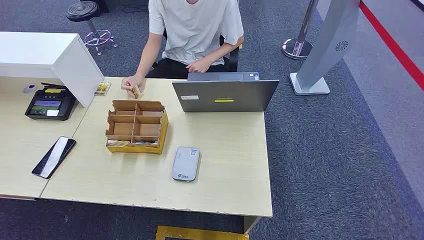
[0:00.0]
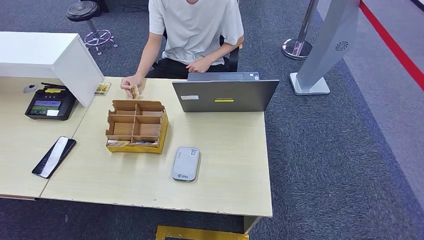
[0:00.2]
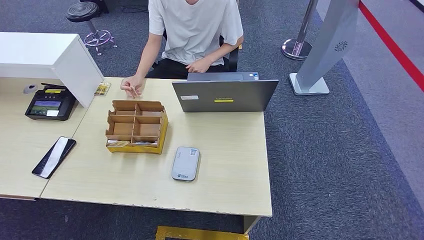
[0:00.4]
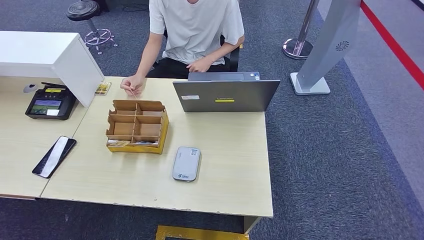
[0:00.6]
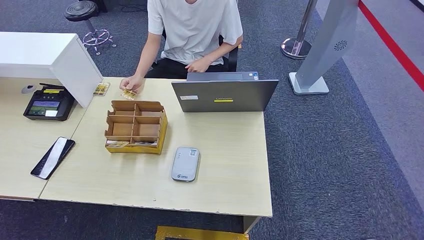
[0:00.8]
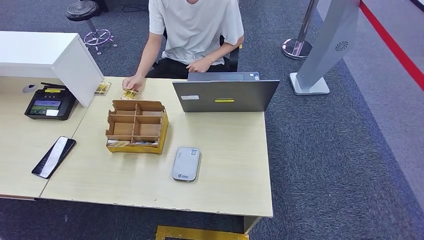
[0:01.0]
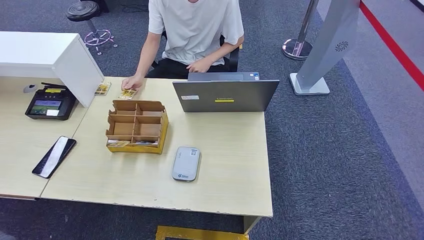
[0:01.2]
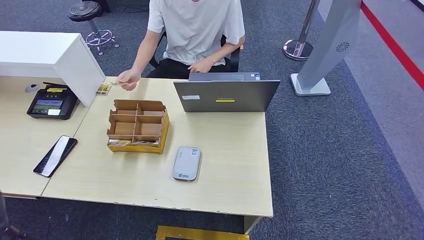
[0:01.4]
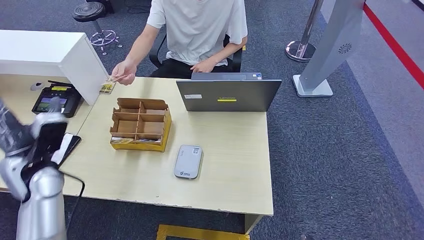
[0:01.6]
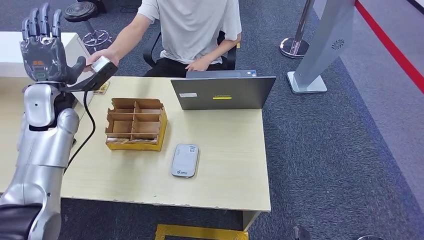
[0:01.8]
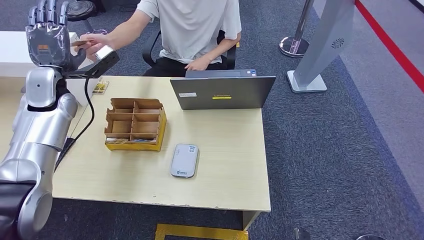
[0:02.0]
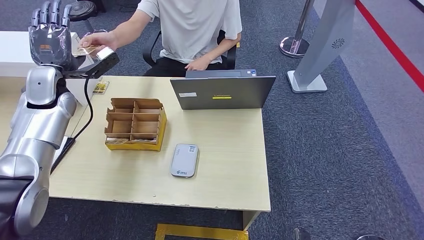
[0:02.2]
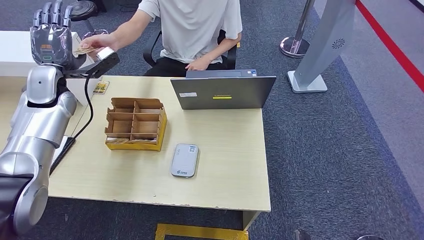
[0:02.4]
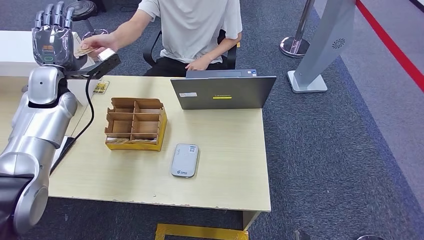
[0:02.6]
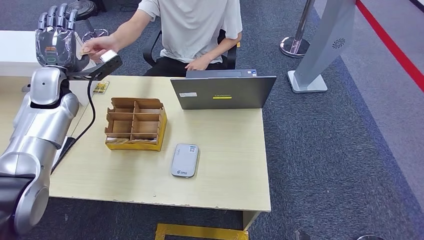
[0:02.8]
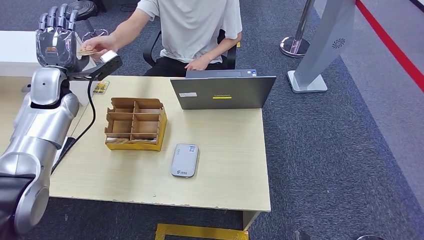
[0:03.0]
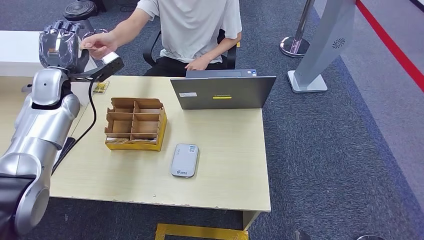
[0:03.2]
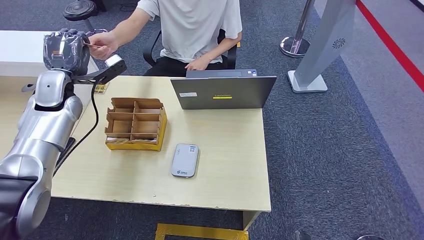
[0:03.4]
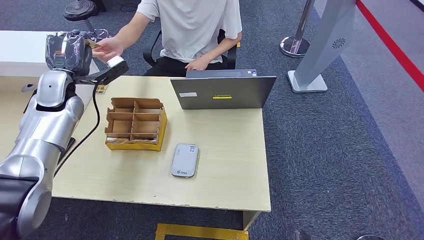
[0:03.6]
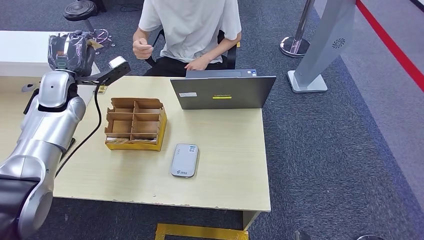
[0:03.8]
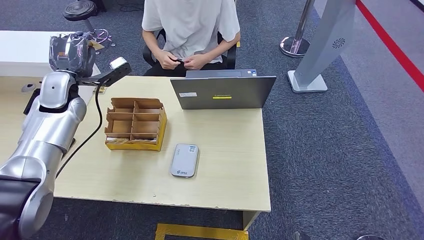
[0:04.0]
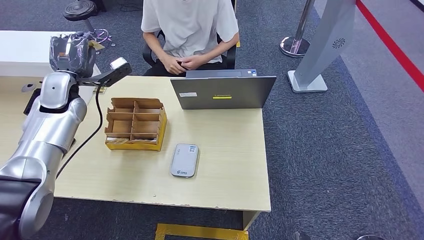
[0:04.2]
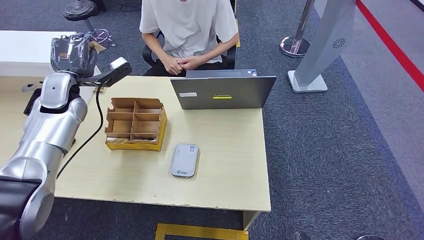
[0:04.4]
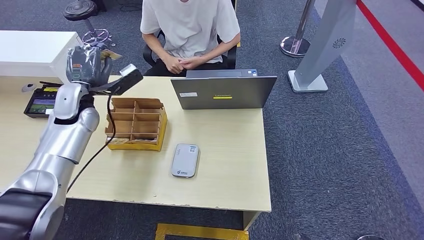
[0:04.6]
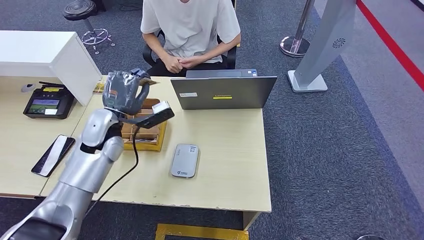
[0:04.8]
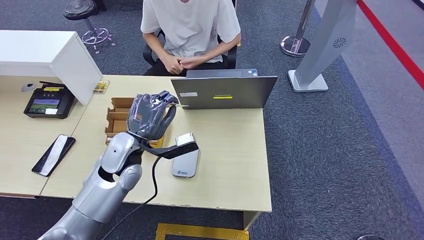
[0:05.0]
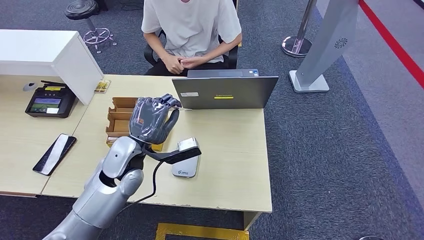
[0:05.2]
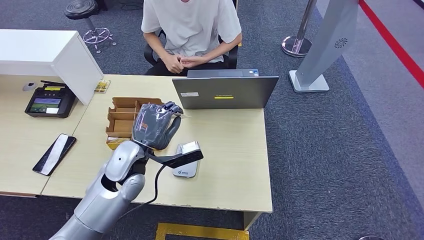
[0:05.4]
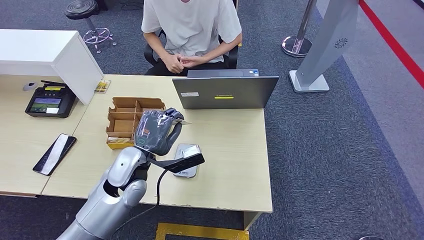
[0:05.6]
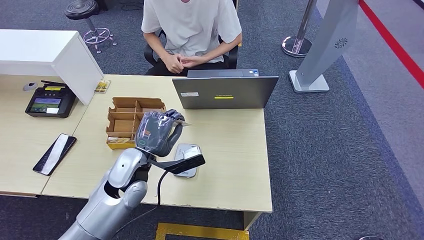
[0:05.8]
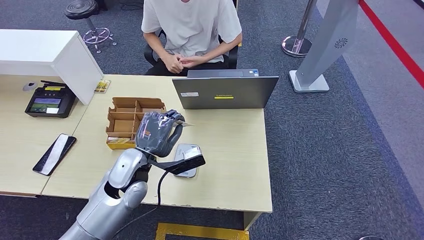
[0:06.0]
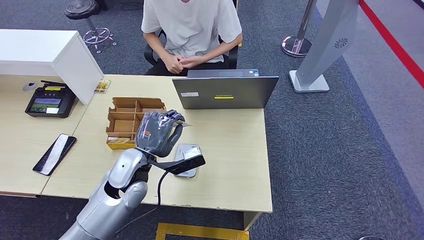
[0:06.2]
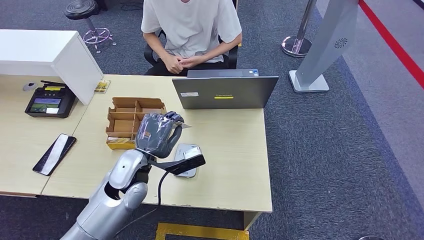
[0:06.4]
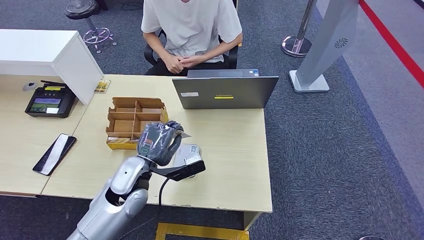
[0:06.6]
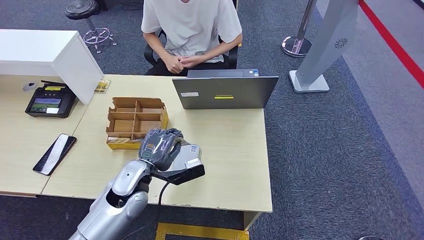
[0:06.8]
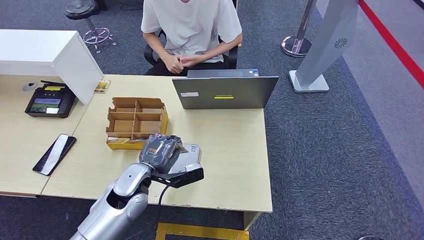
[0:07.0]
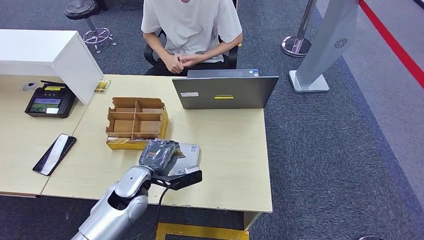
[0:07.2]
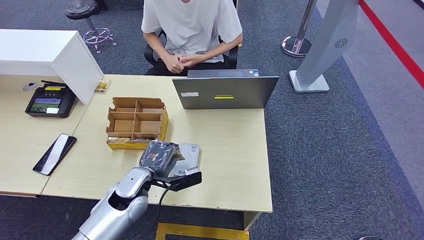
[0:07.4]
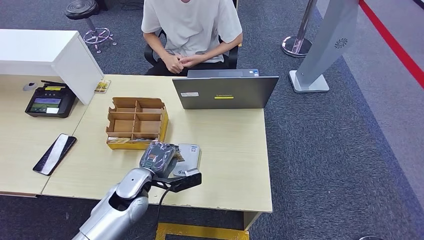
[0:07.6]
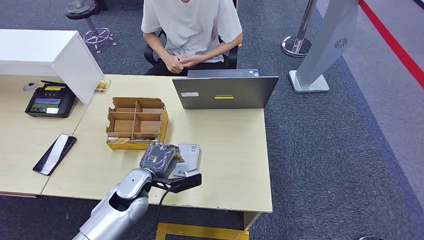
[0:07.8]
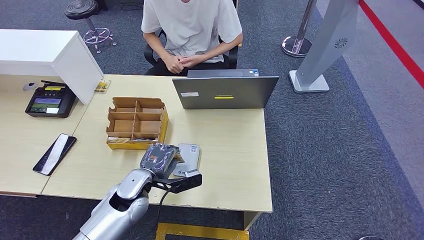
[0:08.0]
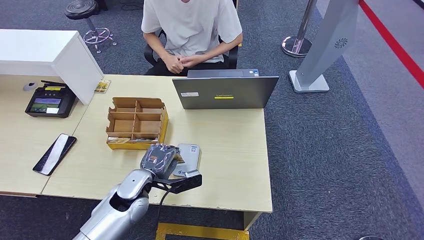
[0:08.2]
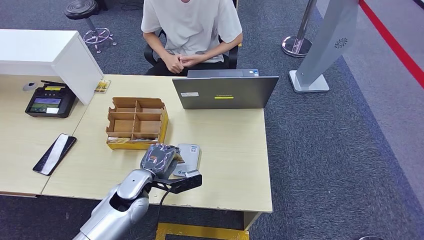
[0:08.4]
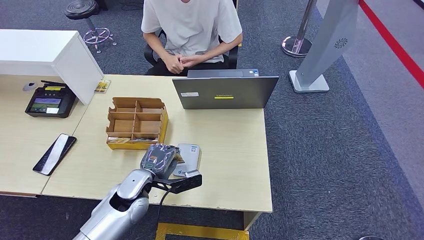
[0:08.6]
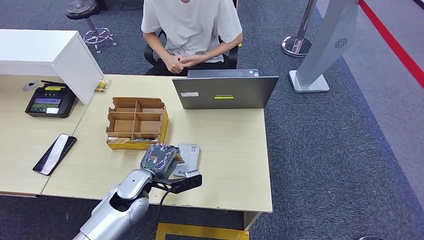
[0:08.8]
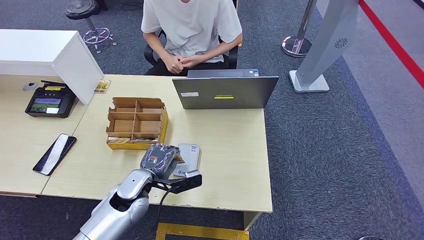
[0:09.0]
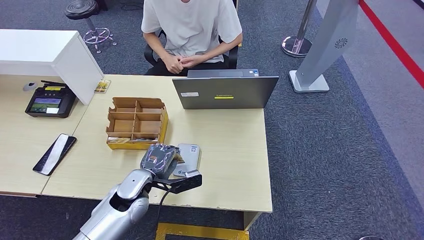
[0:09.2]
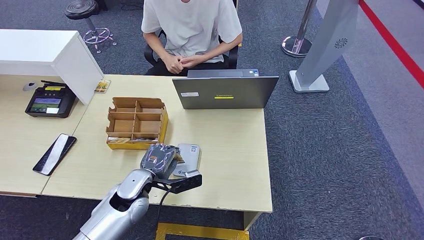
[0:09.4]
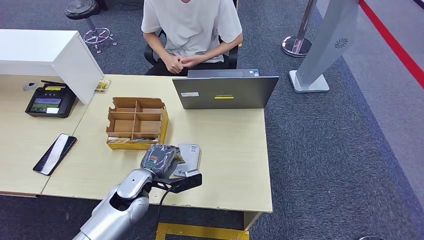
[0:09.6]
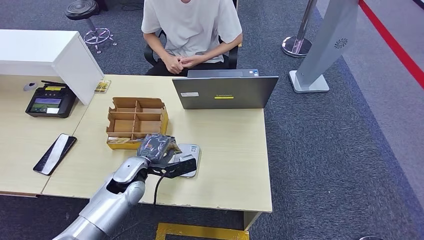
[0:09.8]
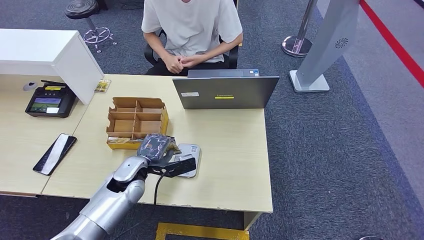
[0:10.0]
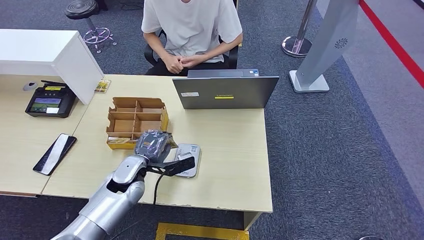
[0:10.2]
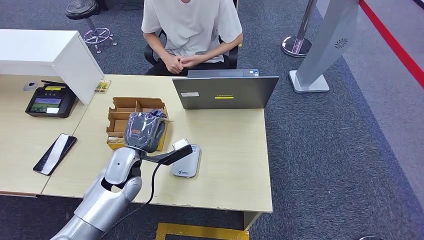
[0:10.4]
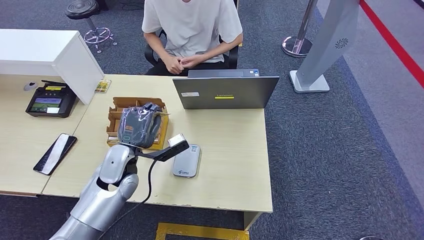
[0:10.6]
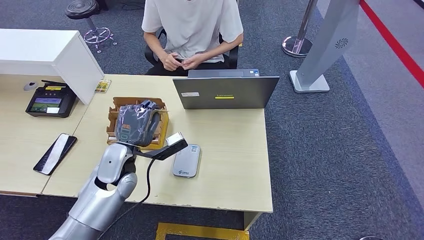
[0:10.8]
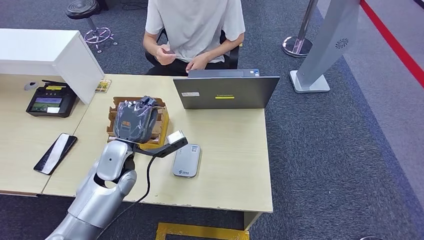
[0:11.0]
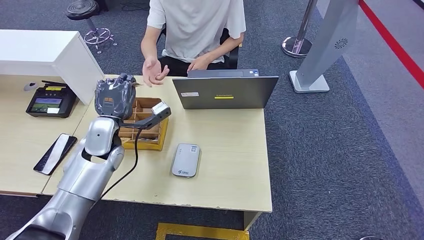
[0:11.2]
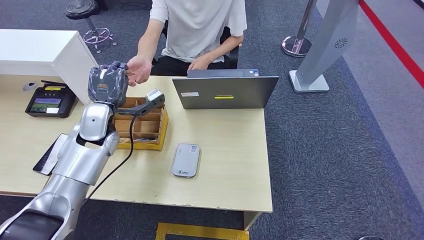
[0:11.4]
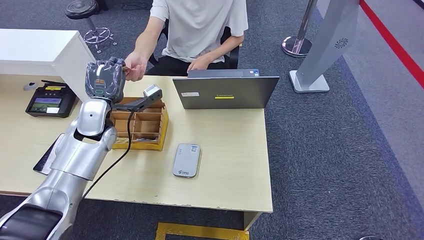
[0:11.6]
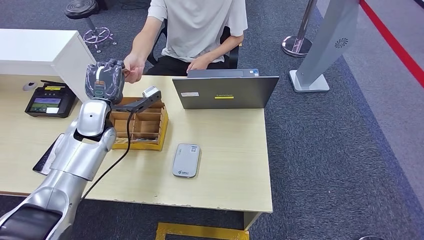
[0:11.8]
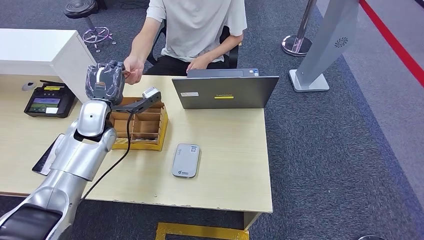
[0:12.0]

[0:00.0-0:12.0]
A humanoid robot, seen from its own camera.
Step, 0:00.0 to 0:06.0: Take the ID card from the person's hand.
Step, 0:06.2 to 0:08.8: Place the ID card on the card reader.
0:03.0 to 0:04.4: There are only small adjustments of the hands.
0:06.0 to 0:07.6: The left hand moves downward, some 10 cm.
0:07.6 to 0:09.0: Both hands stay put.
0:09.0 to 0:10.4: The left hand shifts by some 5 cm.
0:10.4 to 0:12.0: The left hand shifts approximately 15 cm forward, upward and to the left.

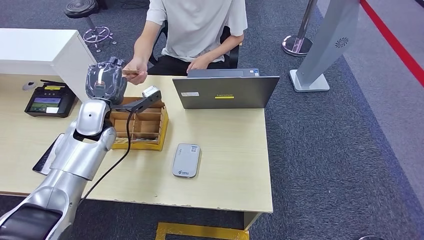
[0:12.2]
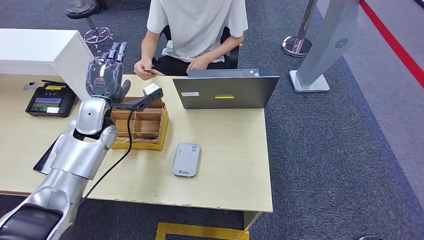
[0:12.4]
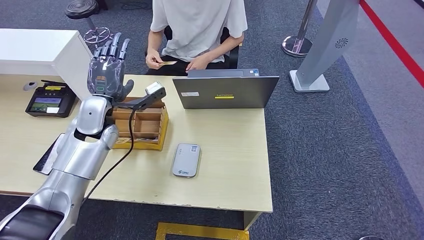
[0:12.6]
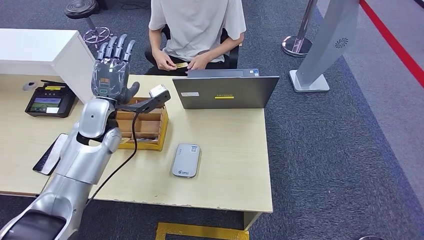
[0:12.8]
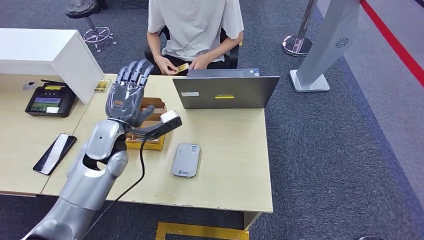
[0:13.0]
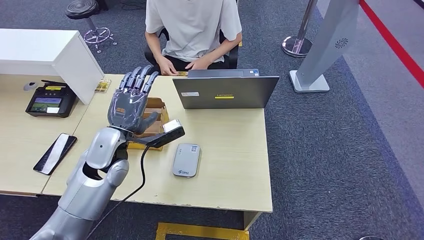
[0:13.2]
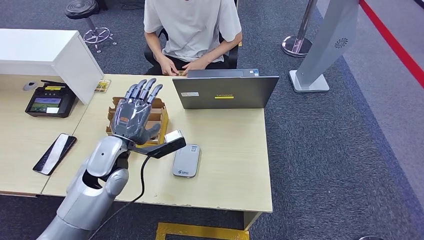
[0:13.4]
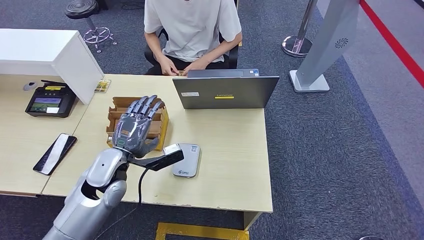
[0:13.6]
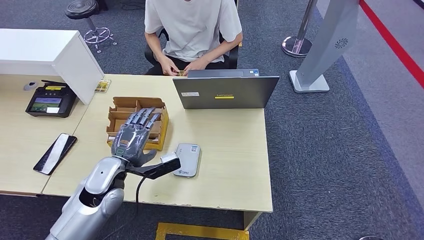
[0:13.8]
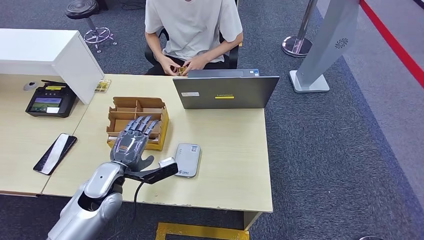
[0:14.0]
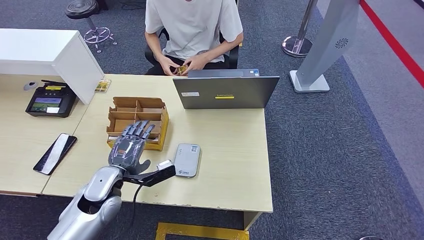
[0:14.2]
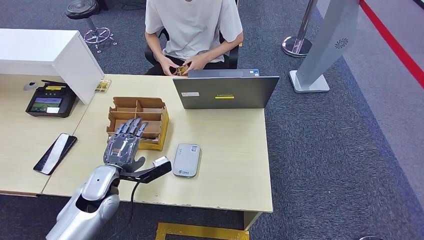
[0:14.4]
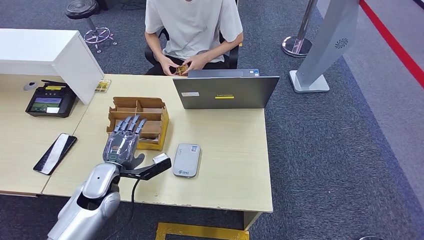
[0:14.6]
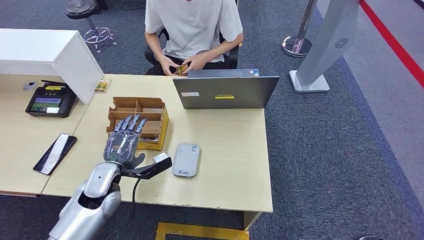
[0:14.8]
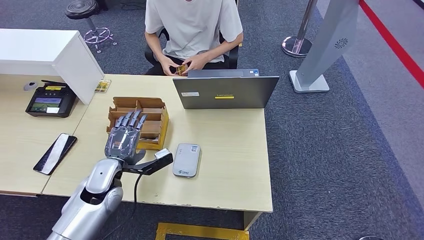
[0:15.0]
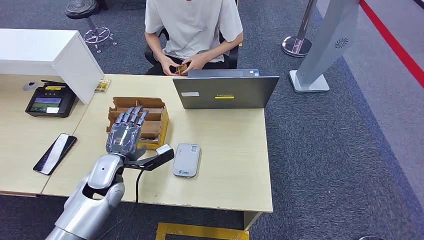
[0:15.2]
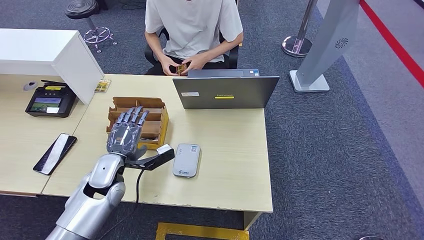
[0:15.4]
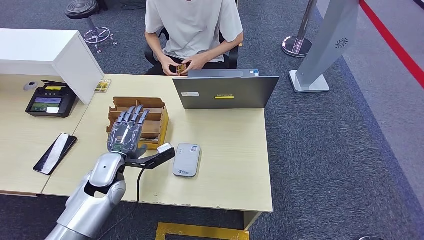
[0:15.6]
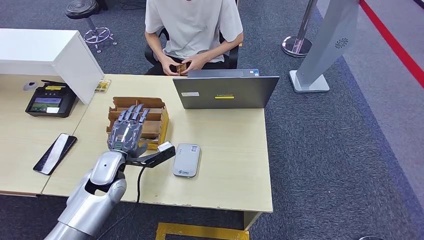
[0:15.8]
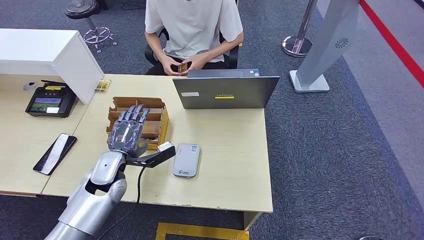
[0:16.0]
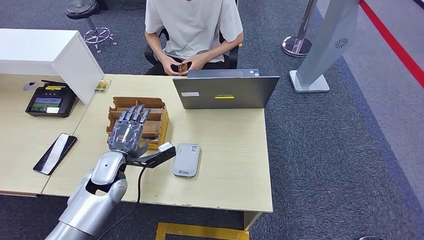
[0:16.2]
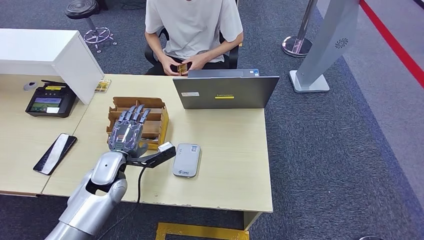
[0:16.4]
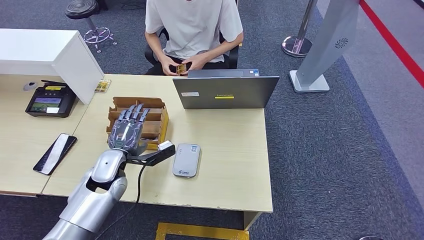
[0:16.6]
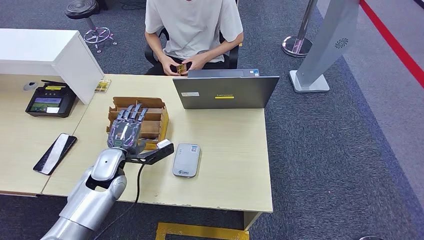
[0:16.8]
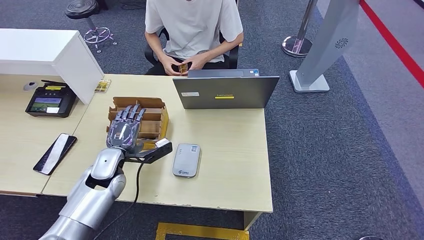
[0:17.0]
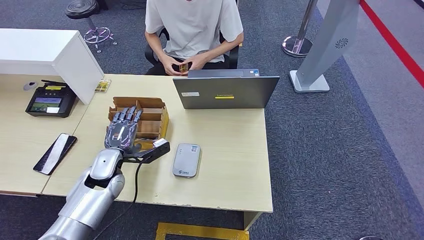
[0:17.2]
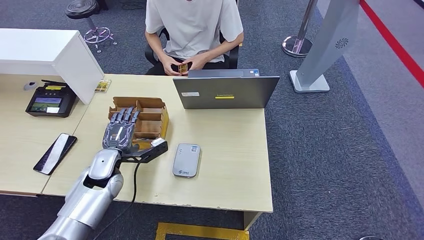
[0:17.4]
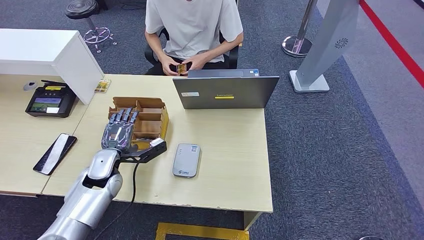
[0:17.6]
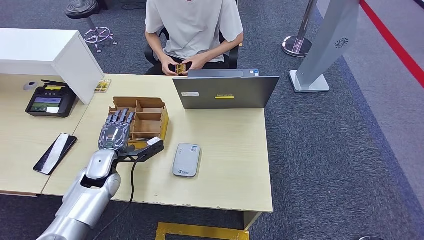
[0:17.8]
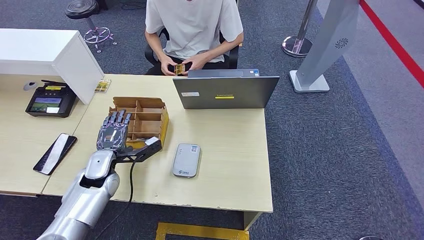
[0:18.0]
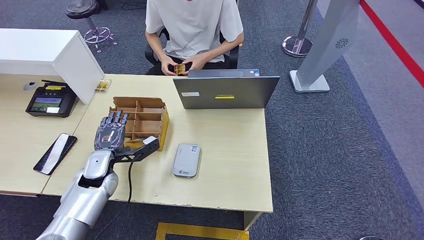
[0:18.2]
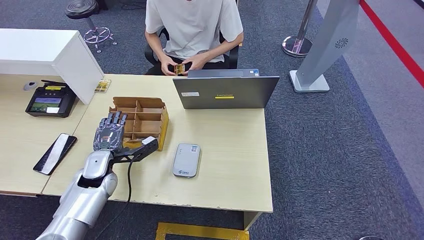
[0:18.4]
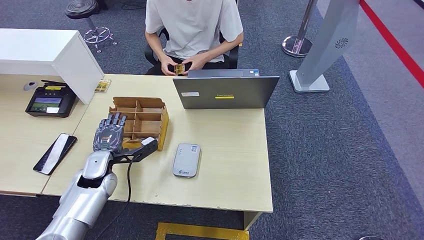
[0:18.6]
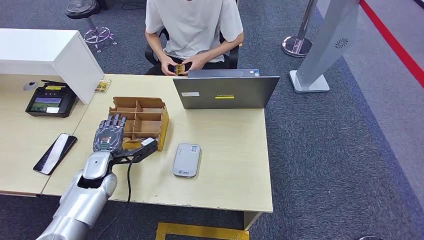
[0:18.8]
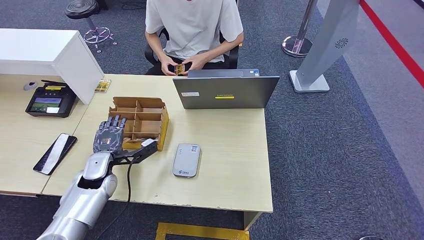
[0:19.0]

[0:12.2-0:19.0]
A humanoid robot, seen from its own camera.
Step, 0:12.2 to 0:14.4: Hand the ID card to the person.
0:12.2 to 0:13.6: The left hand moves backward, to the right and downward, some 15 cm.
0:13.6 to 0:15.0: The left hand goes roughly 5 cm downward.
0:15.0 to 0:19.0: There are only small adjustments of the hands.
